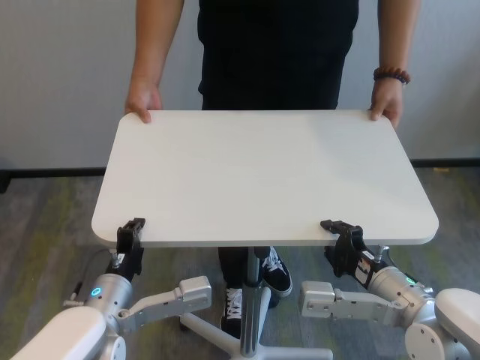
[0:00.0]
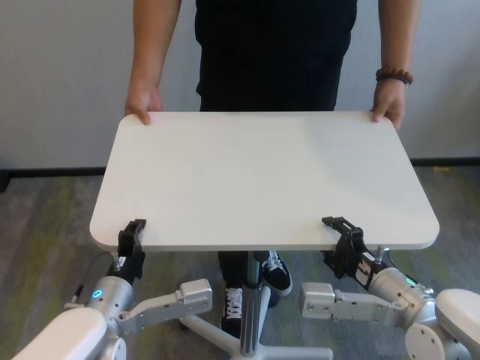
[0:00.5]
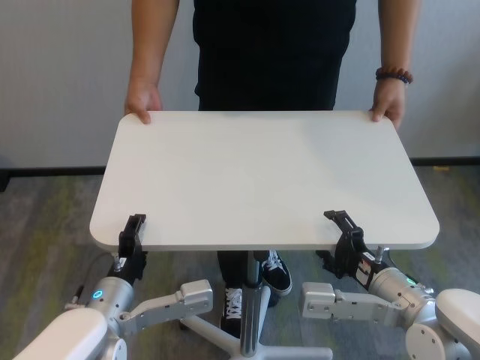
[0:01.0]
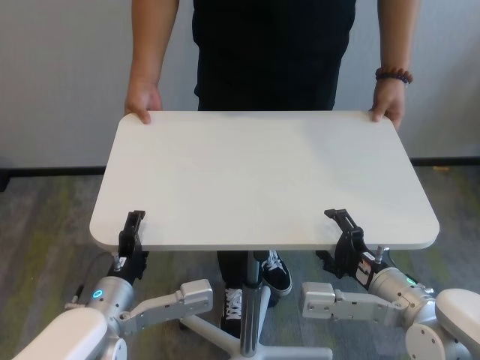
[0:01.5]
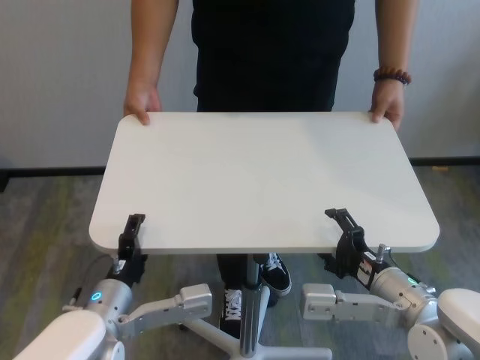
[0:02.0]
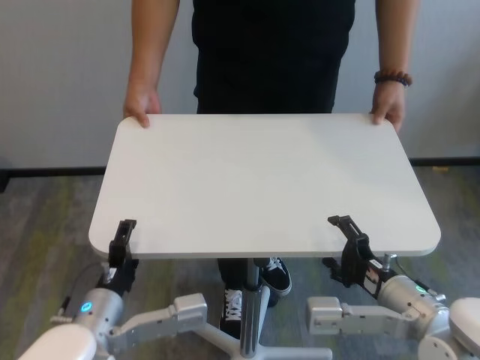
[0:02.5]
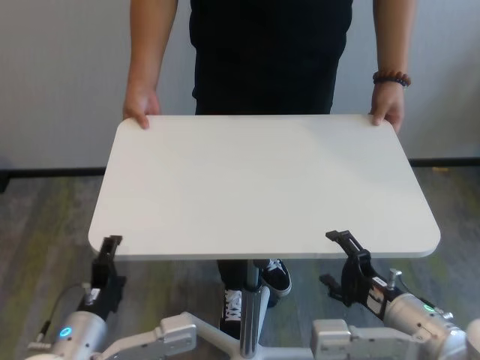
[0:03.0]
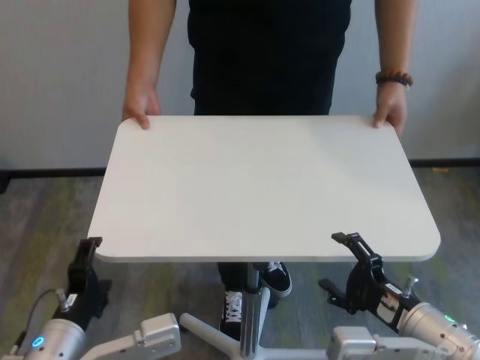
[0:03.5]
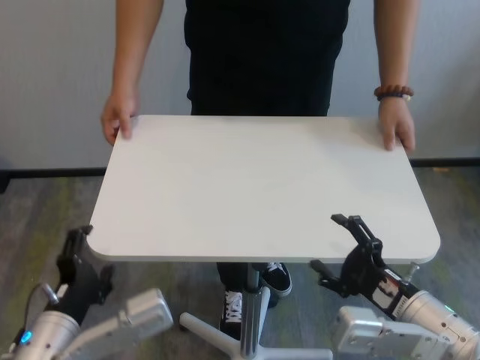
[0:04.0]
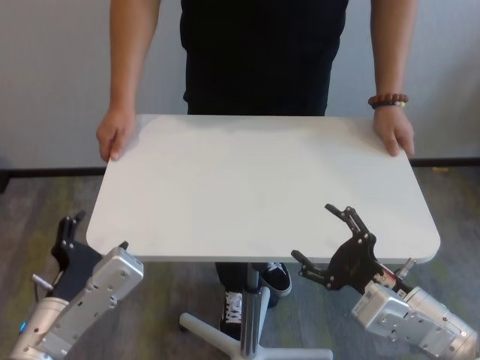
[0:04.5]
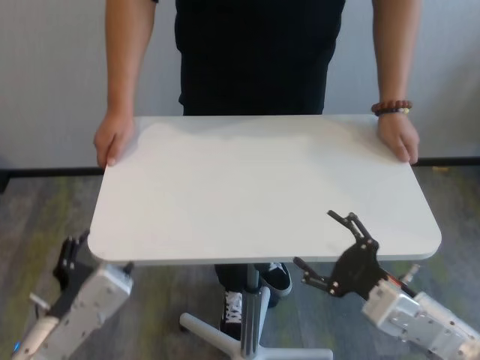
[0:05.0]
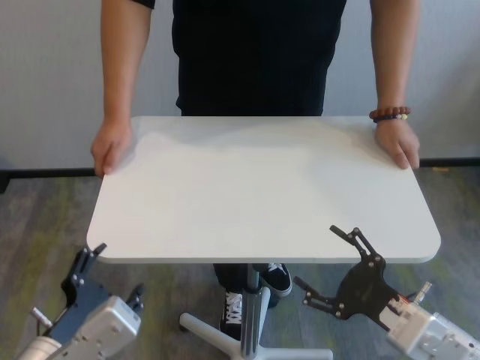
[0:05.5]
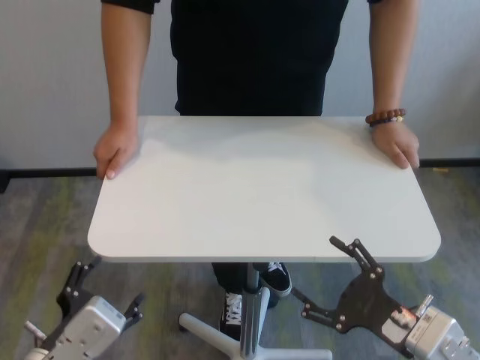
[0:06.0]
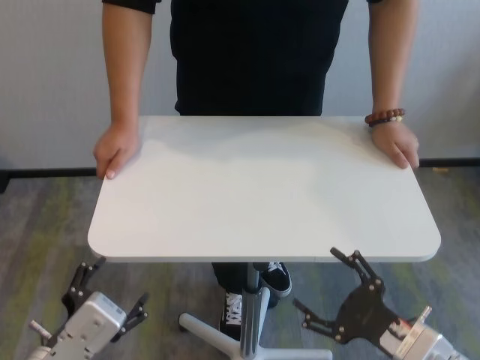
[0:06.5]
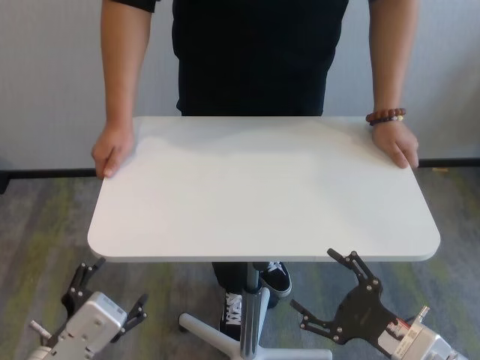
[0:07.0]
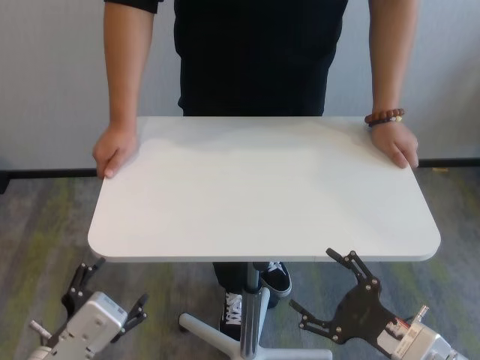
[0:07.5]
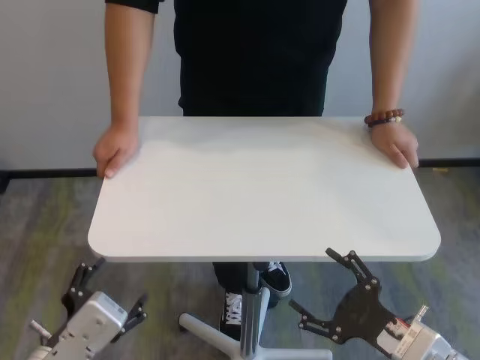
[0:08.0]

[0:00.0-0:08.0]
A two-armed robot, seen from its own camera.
Task of the whole recording: human machine collaborative table moving.
Step, 0:00.0 to 0:02.0: Move the table forward with both grippers.

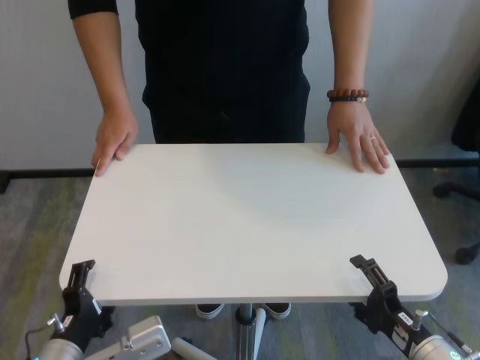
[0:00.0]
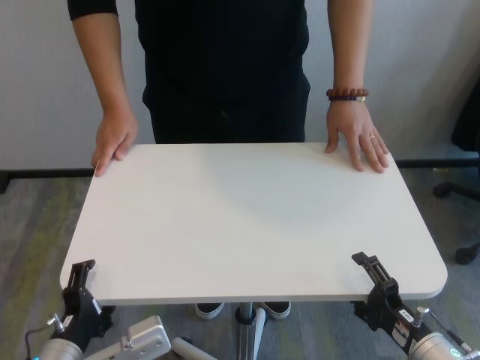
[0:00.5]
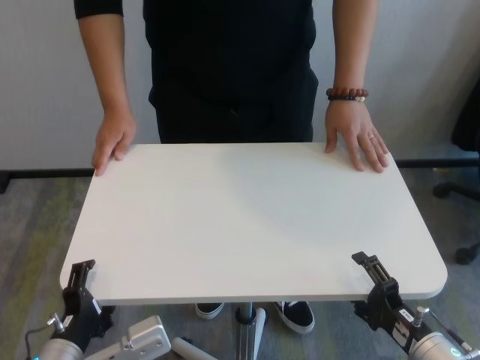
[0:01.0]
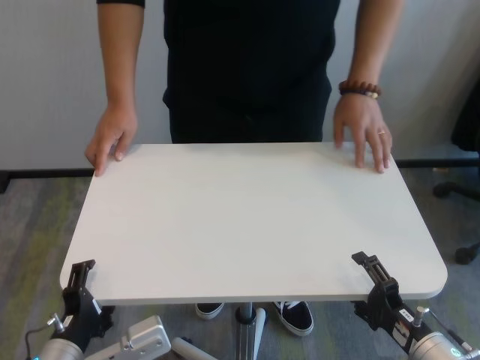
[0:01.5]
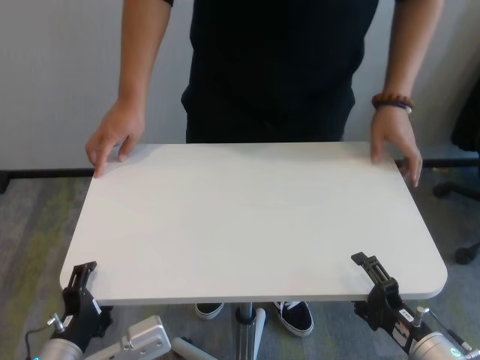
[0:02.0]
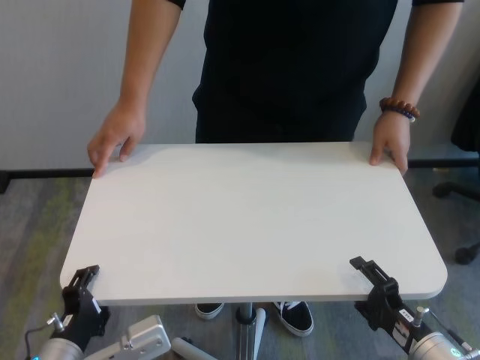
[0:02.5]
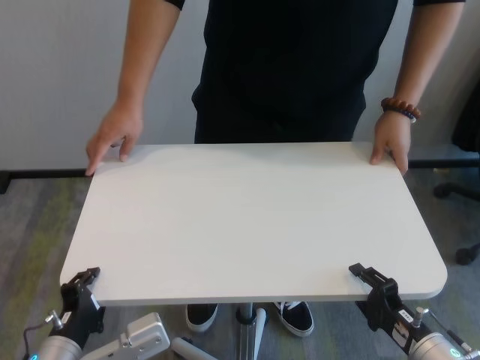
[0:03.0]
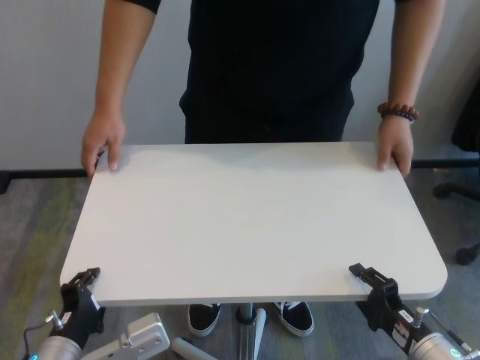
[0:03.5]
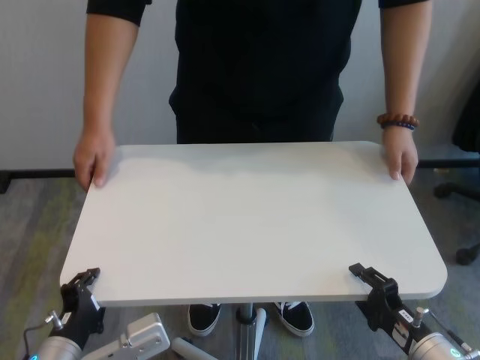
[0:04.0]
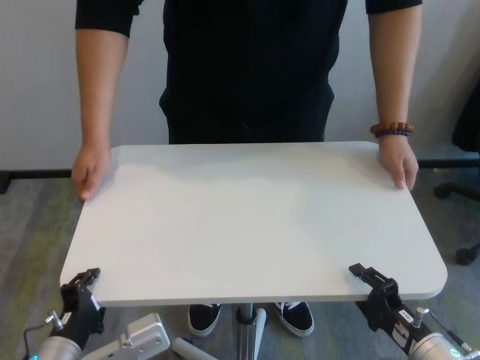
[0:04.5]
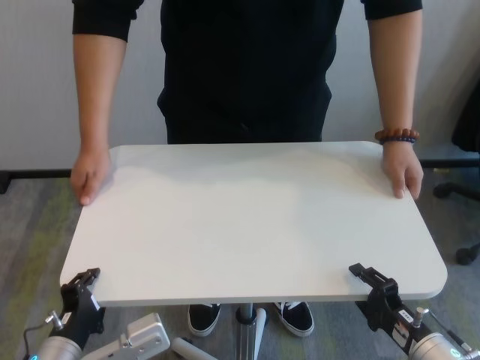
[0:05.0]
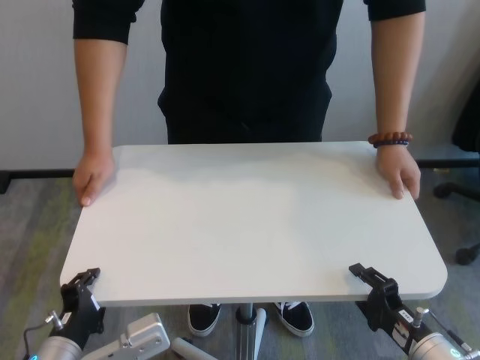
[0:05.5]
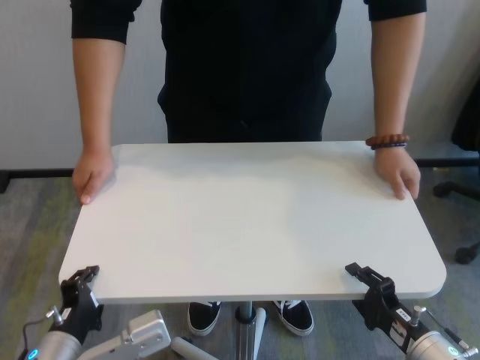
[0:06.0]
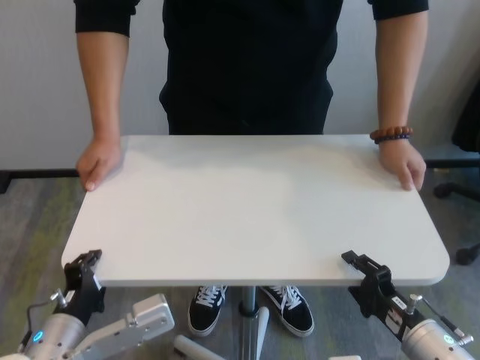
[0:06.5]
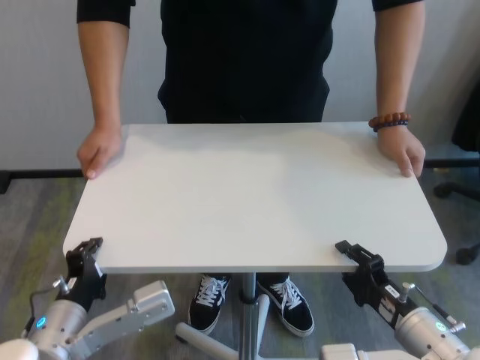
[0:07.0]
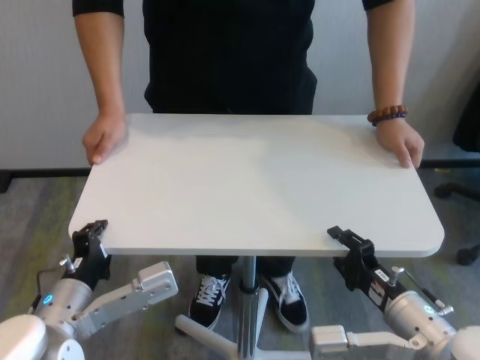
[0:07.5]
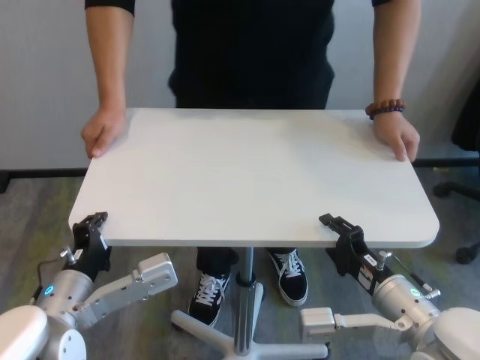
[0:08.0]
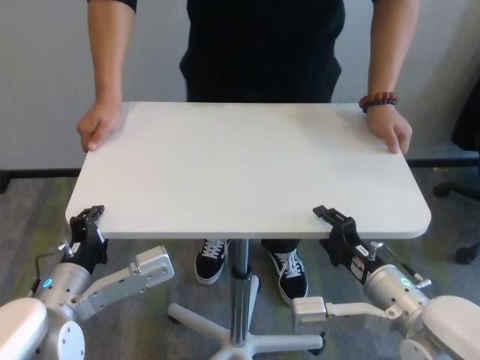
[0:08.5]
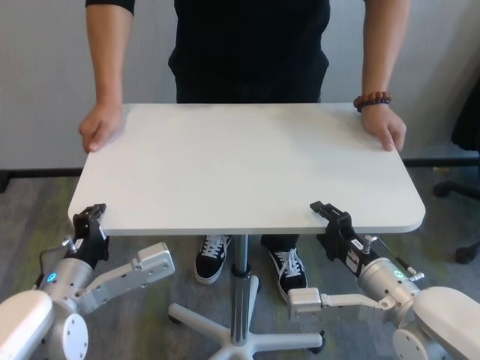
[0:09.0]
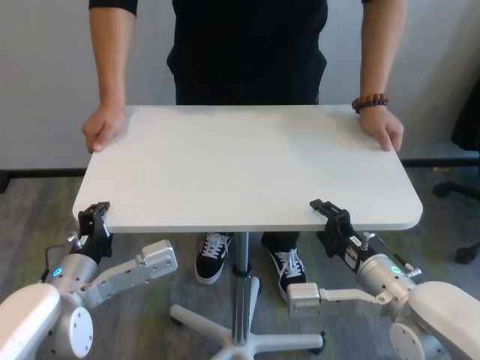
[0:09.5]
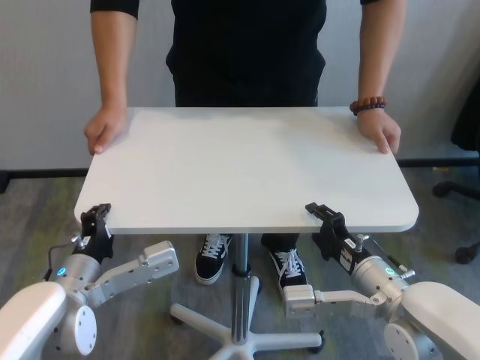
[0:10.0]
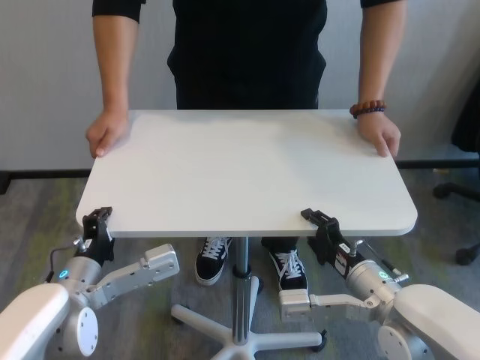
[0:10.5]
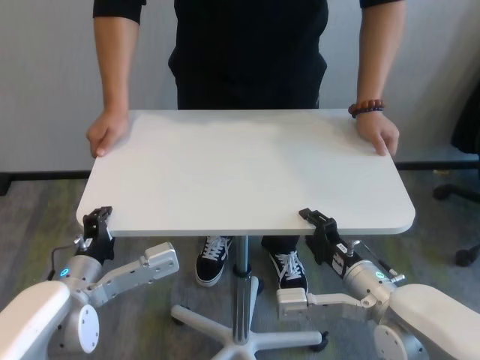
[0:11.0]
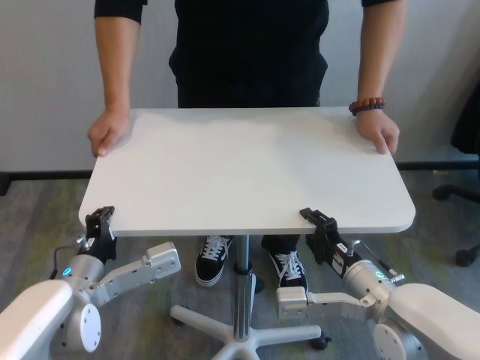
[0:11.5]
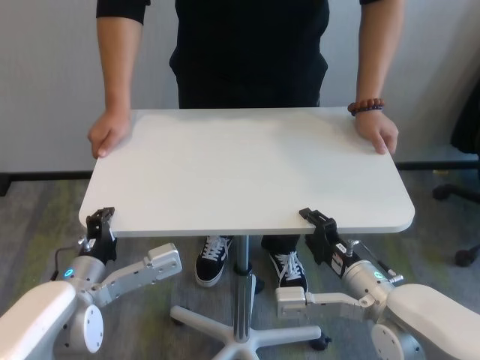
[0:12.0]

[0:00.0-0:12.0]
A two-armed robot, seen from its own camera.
Task of the whole recording: human machine collaborative table moving.
Step, 0:00.0 to 0:04.5: Grasp the table with both grippers.

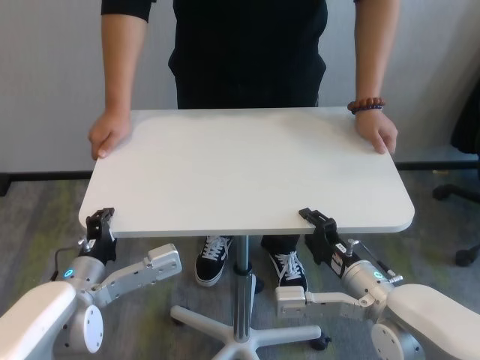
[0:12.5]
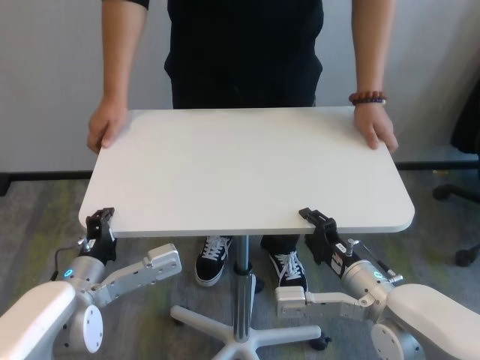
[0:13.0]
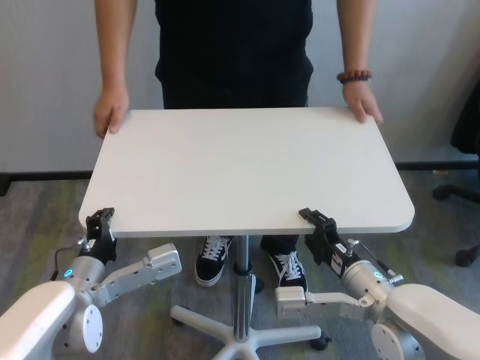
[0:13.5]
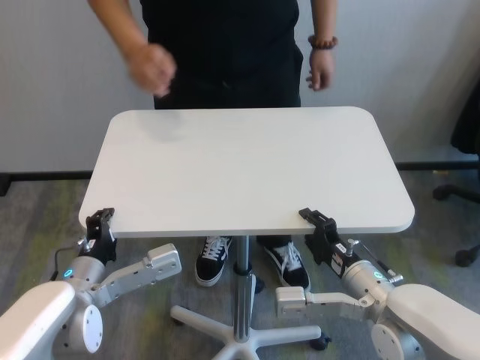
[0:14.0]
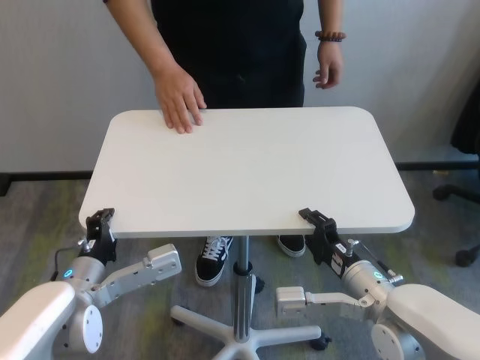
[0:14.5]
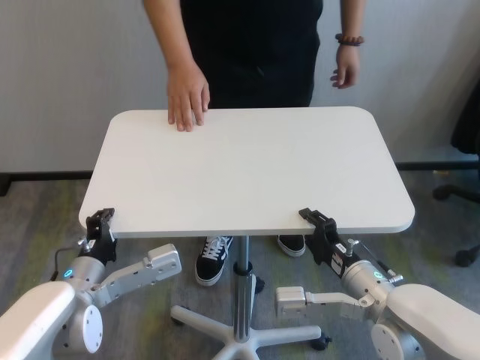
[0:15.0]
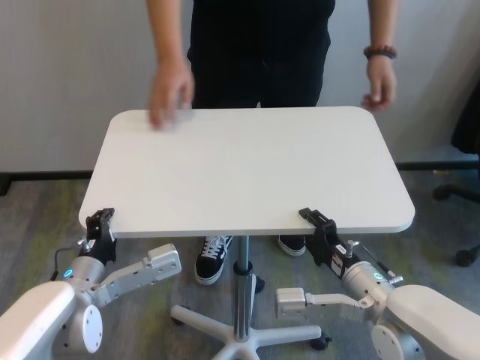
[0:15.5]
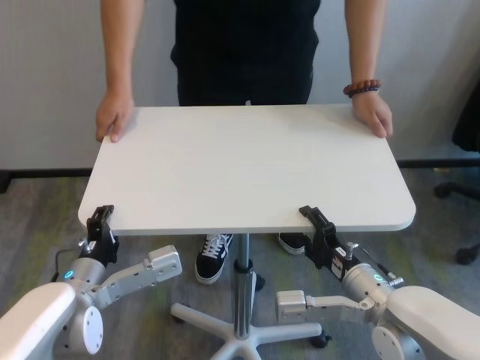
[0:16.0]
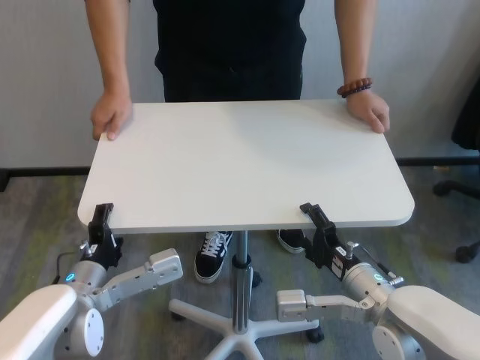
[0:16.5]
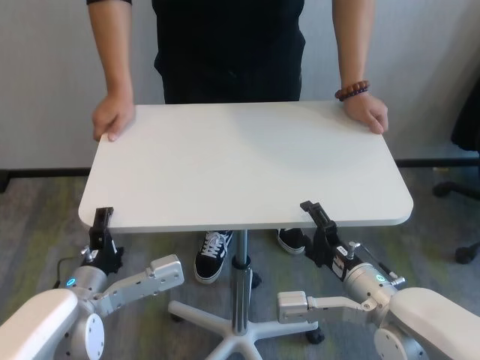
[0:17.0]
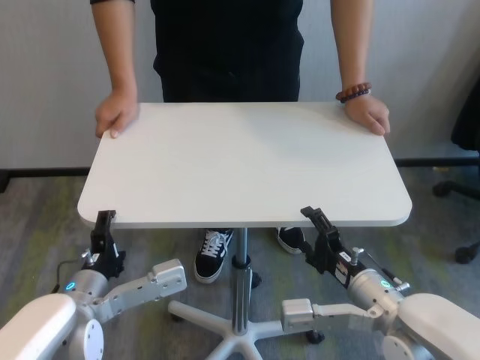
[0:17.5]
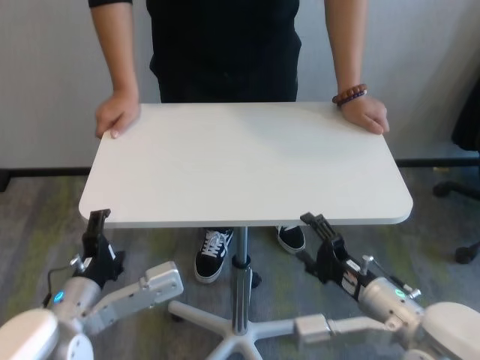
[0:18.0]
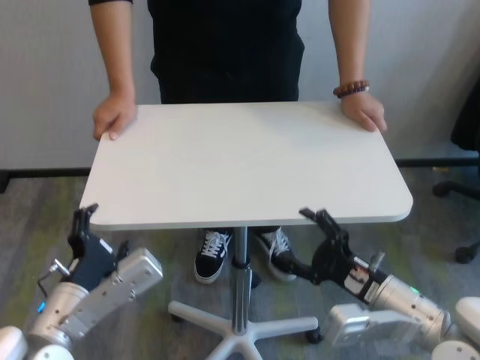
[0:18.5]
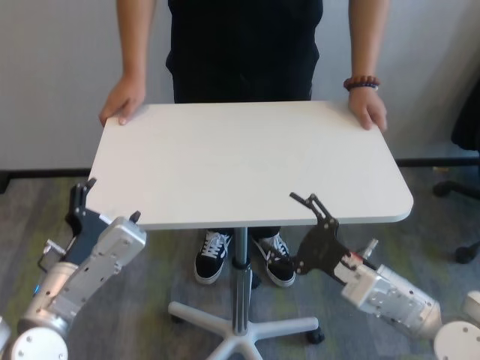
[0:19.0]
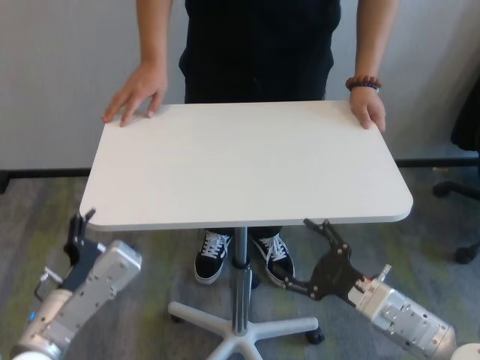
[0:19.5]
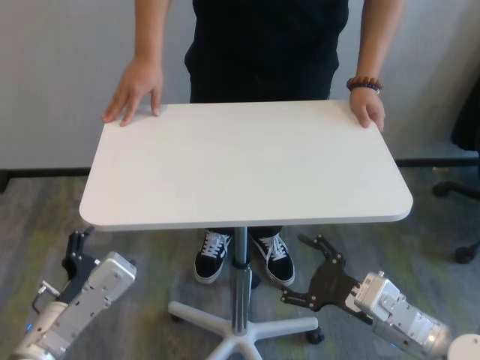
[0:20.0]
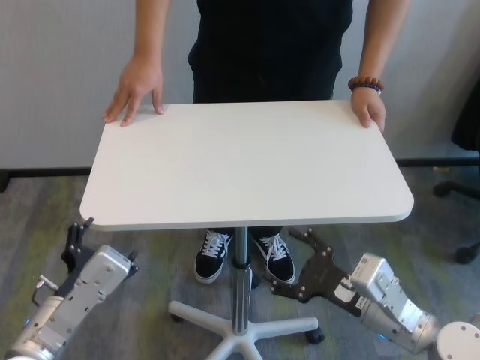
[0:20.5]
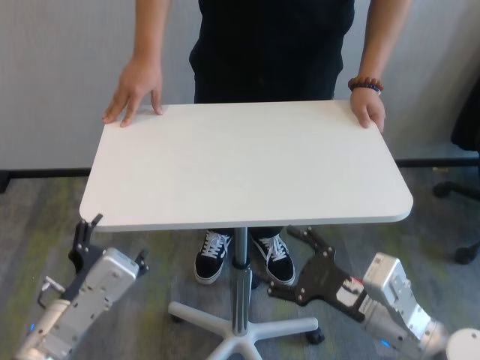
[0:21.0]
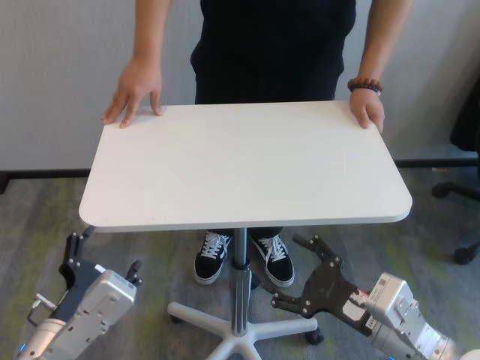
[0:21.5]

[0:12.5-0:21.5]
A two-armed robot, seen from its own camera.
Task of the whole recording: human machine collaborative table moving.
Step, 0:12.5 to 0:17.0: Move the table forward with both grippers.
